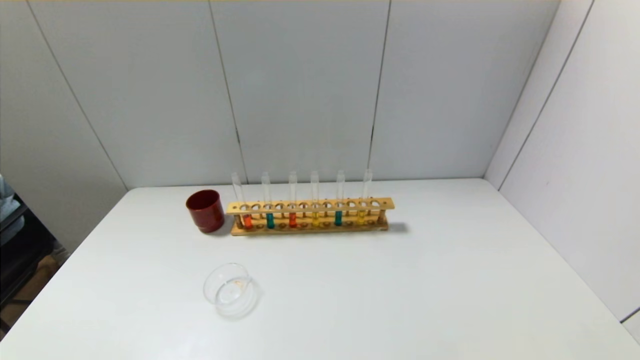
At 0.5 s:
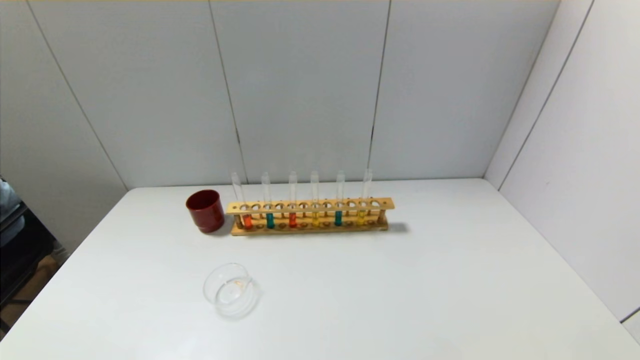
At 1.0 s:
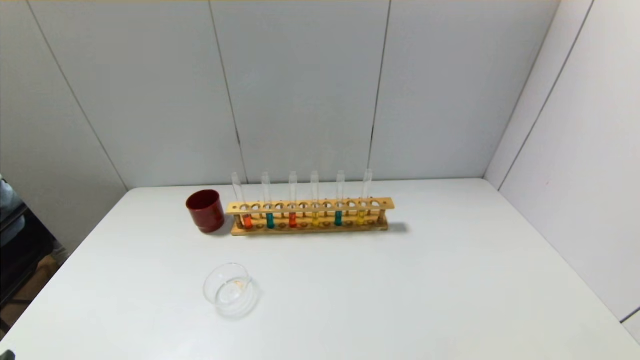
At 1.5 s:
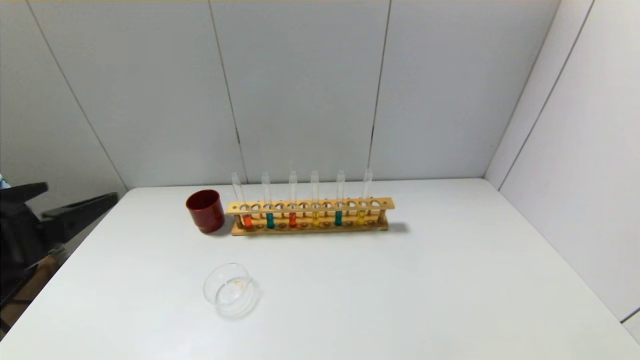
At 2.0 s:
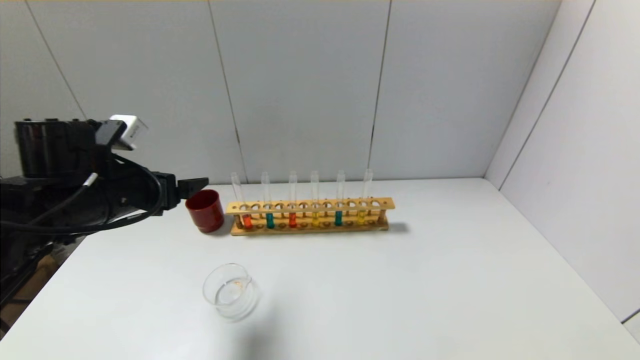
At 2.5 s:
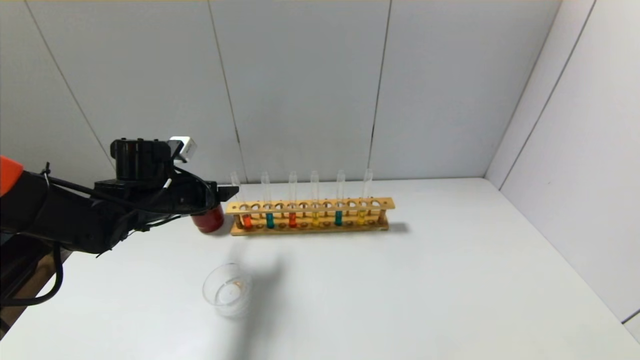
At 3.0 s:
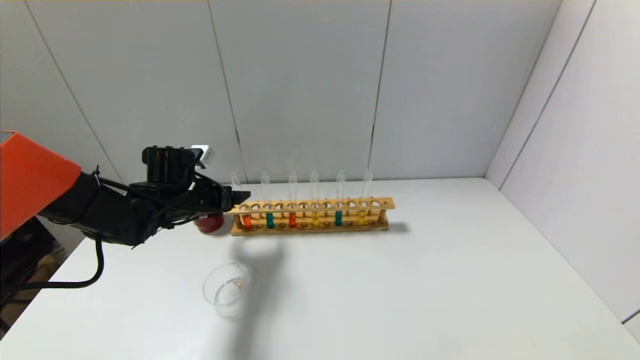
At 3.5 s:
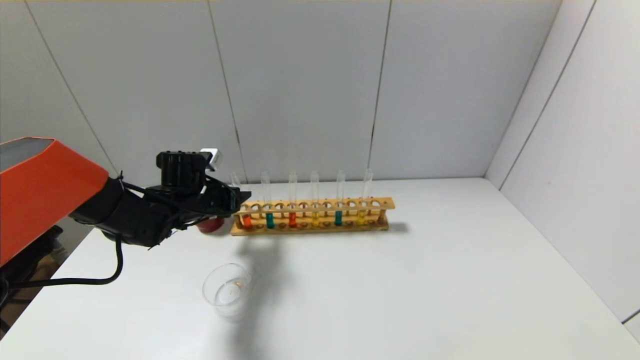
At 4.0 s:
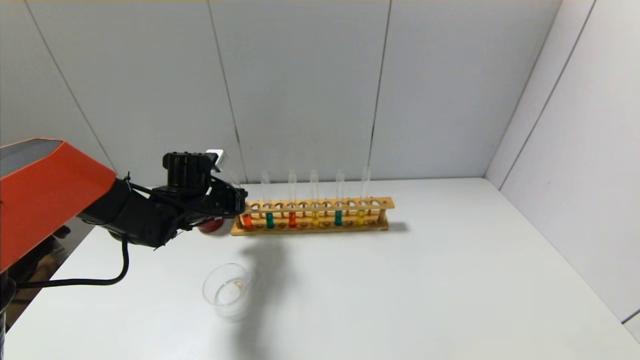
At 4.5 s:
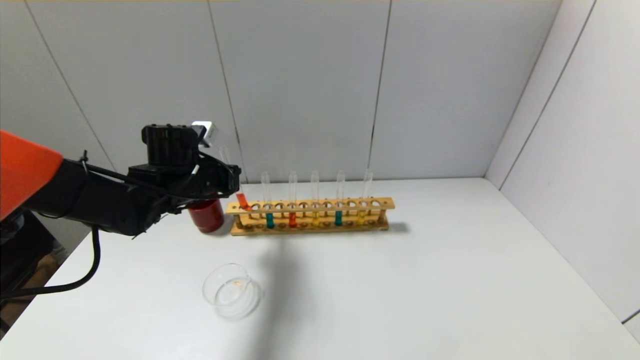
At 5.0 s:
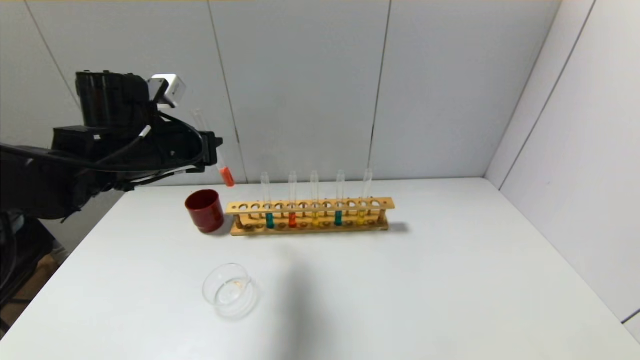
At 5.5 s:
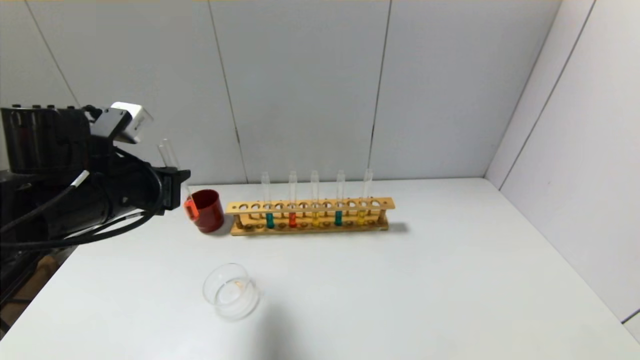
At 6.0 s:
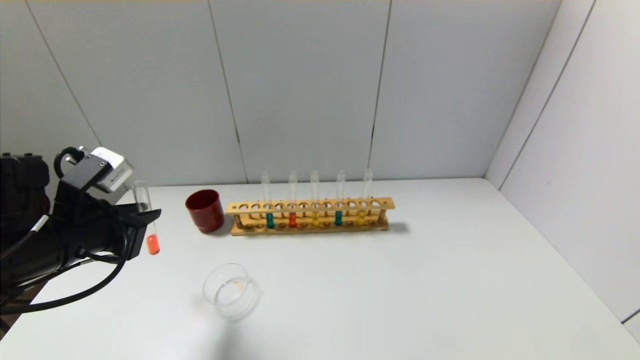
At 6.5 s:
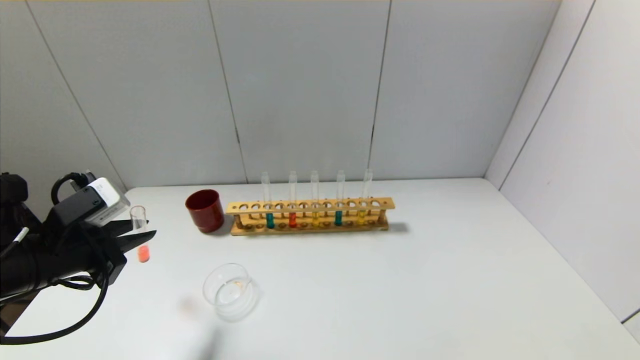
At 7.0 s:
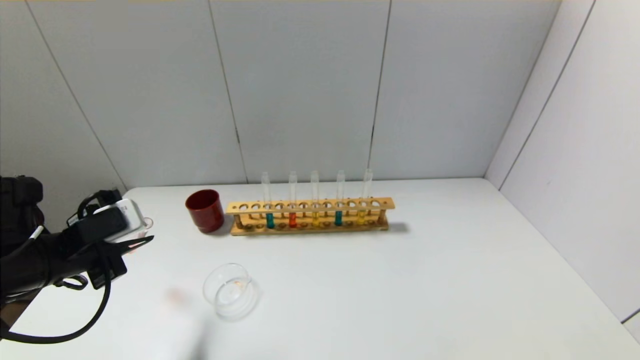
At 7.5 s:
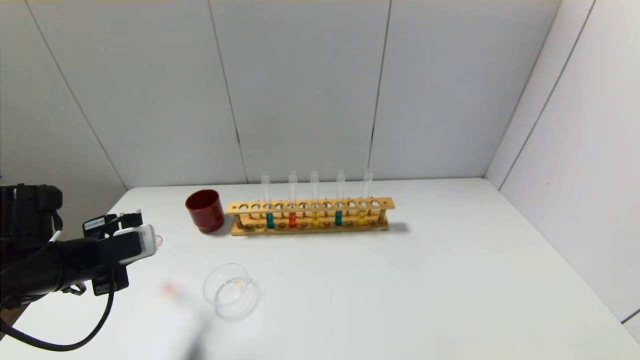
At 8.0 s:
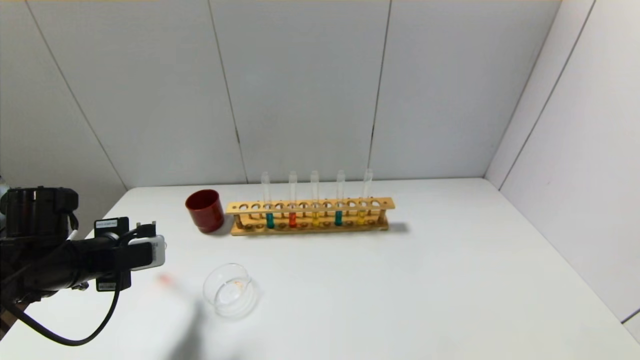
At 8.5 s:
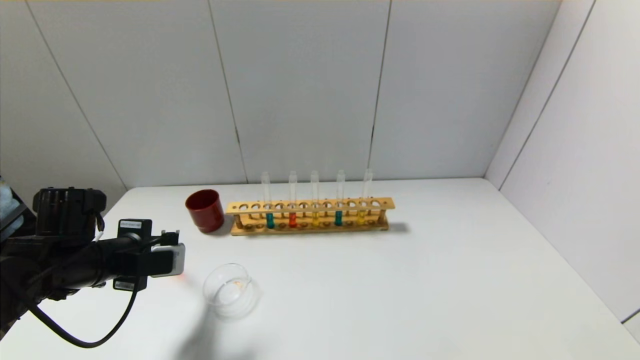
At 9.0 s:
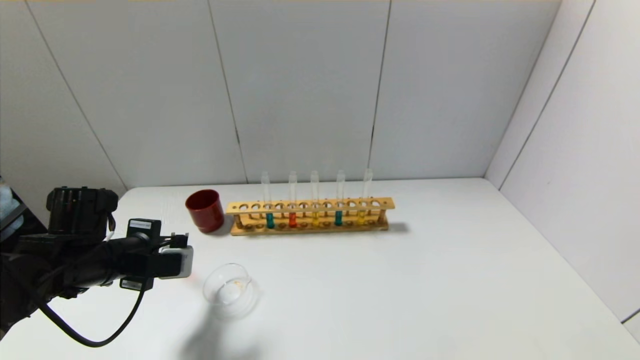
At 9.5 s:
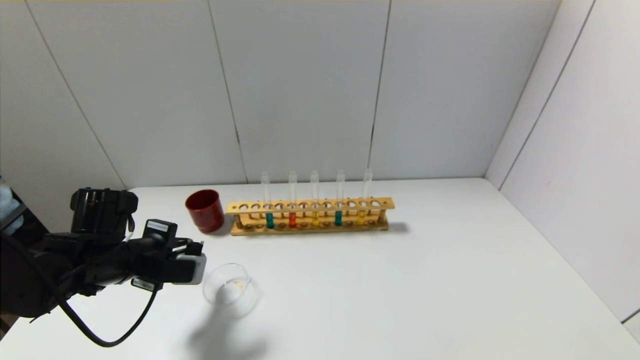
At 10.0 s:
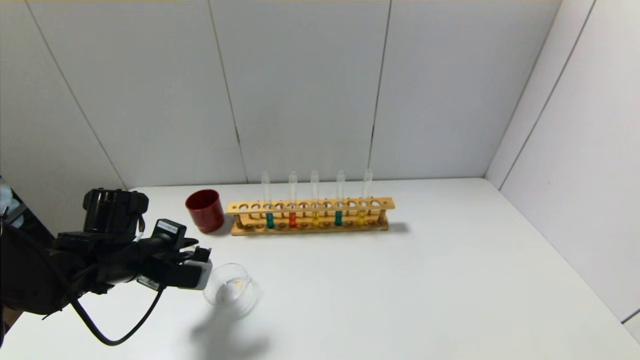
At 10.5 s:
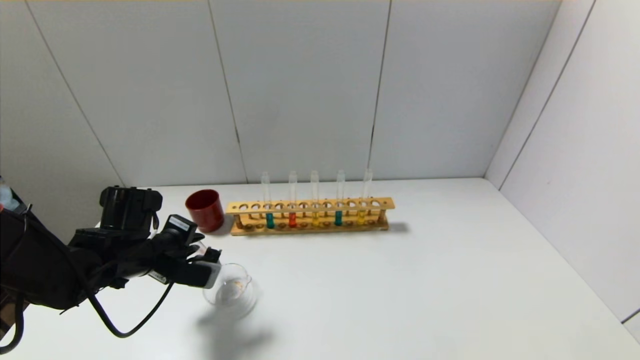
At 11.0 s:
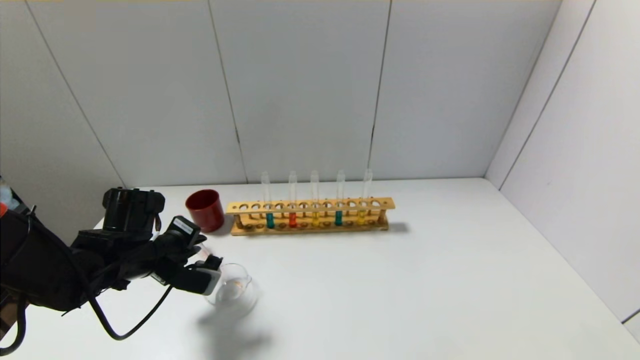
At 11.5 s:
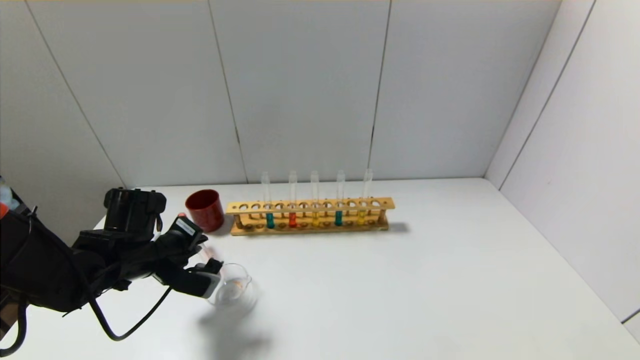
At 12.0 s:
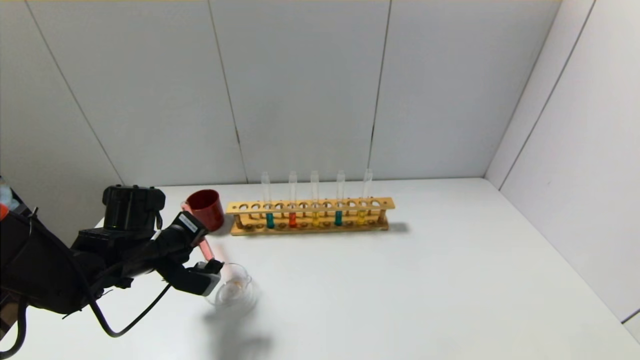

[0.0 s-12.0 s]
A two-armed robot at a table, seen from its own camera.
Step, 0.0 to 3.5 s: Grasp the red reagent with the left gripper.
0.0 to 2.0 s: The left gripper travels forward by about 30 cm.
2.0 to 4.0 s: The left gripper shifts about 15 cm forward and downward, and closes its fingers.
4.0 to 6.0 s: The left gripper travels backward and upward by about 20 cm.
6.0 to 8.0 s: The left gripper heads downward, covering roughly 5 cm.
8.0 to 10.0 s: The left gripper goes roughly 5 cm to the right.

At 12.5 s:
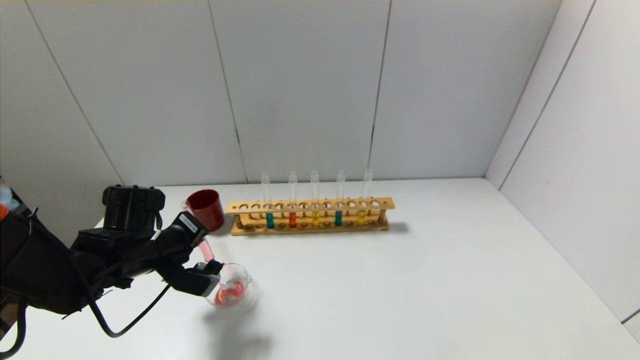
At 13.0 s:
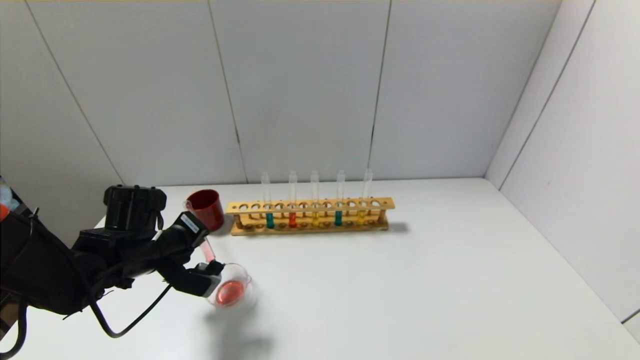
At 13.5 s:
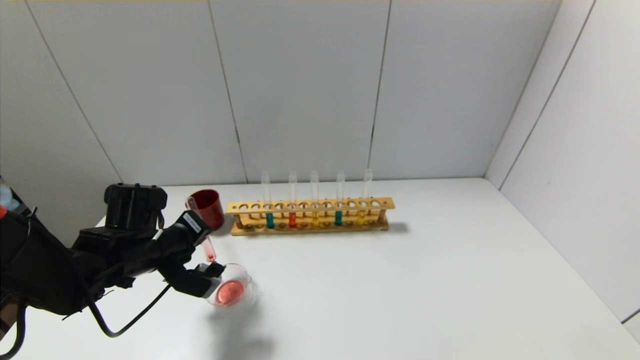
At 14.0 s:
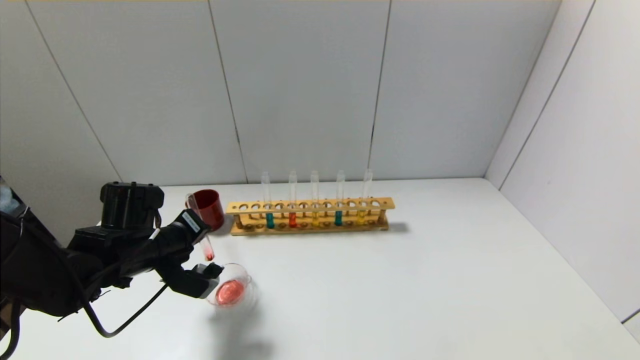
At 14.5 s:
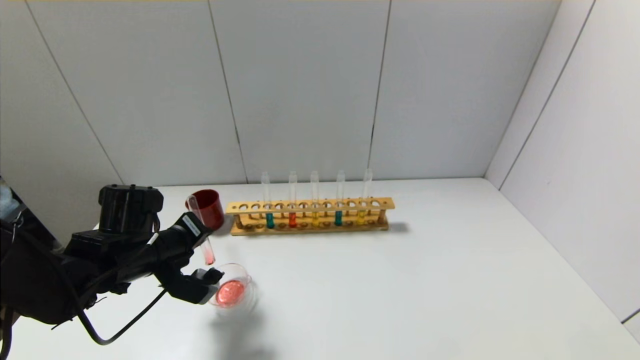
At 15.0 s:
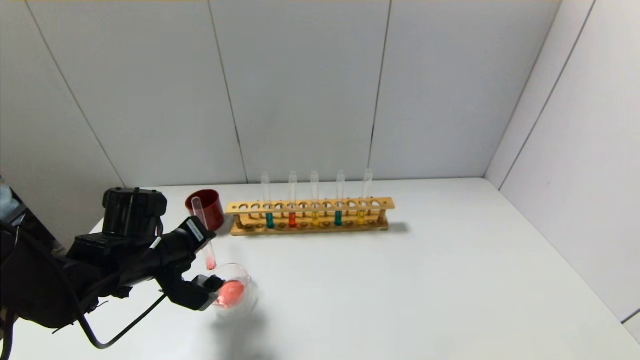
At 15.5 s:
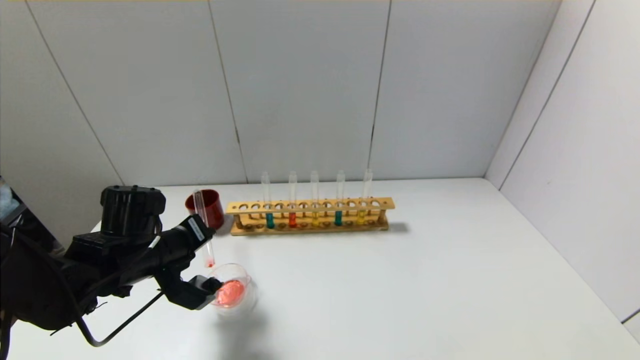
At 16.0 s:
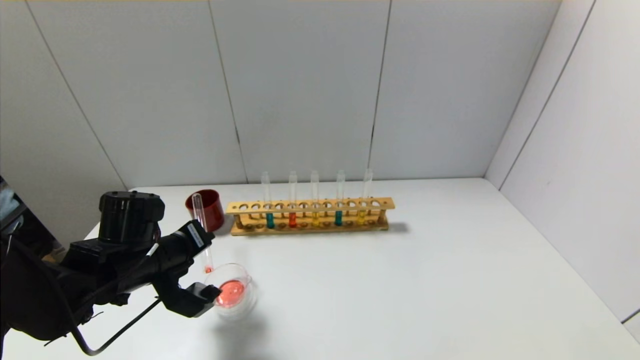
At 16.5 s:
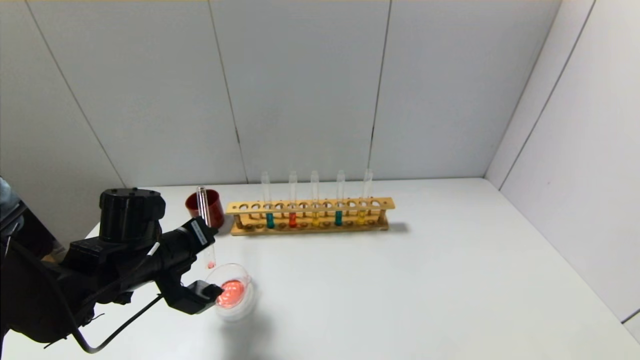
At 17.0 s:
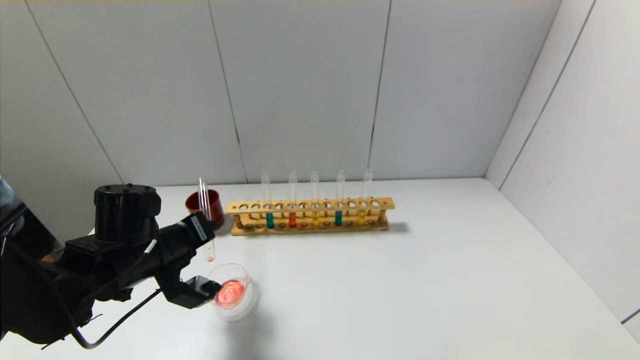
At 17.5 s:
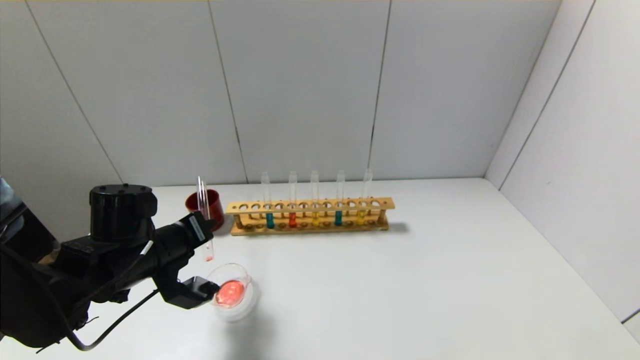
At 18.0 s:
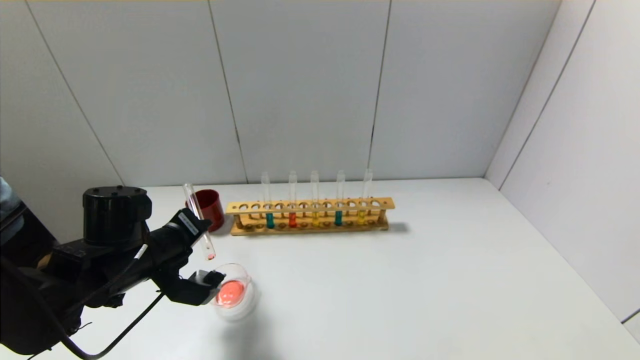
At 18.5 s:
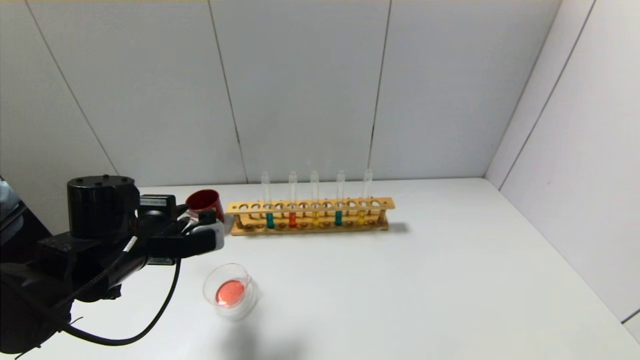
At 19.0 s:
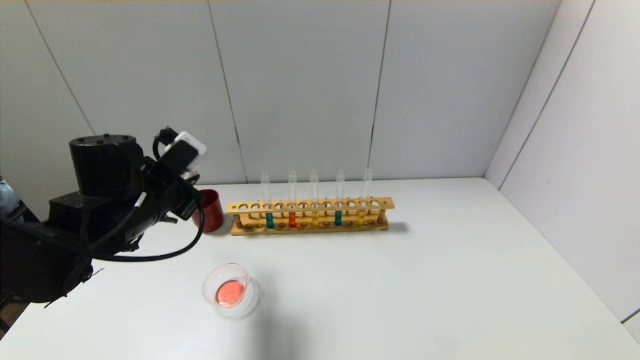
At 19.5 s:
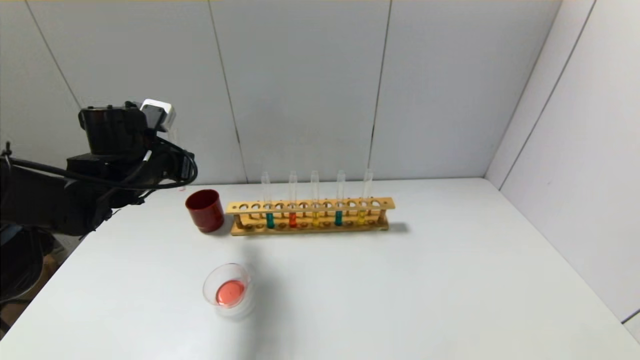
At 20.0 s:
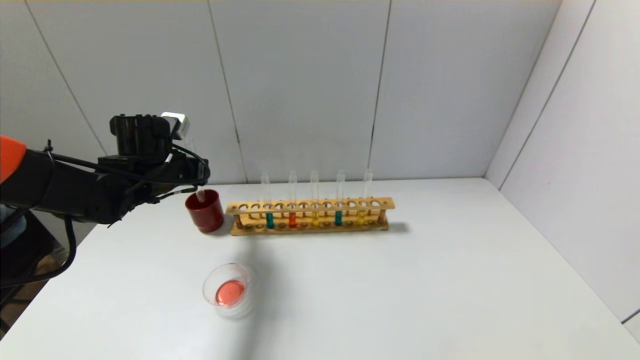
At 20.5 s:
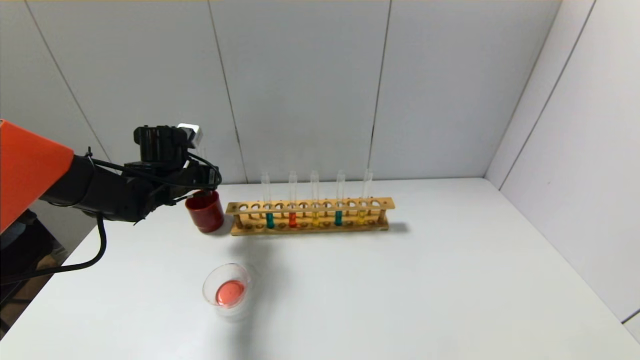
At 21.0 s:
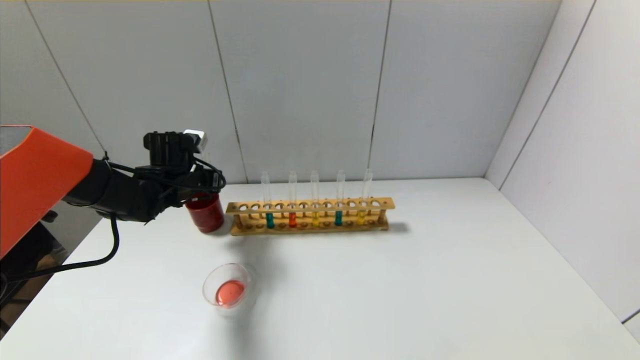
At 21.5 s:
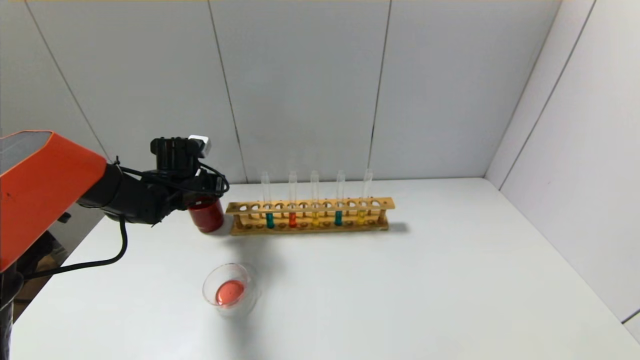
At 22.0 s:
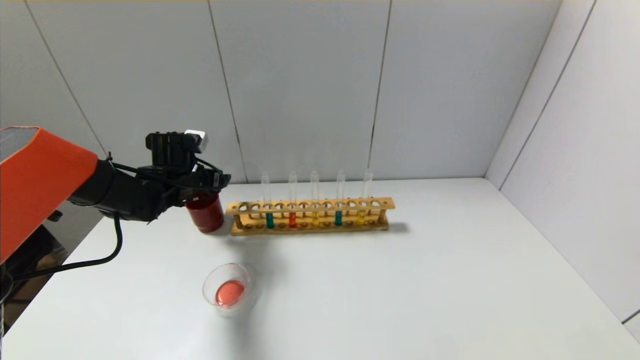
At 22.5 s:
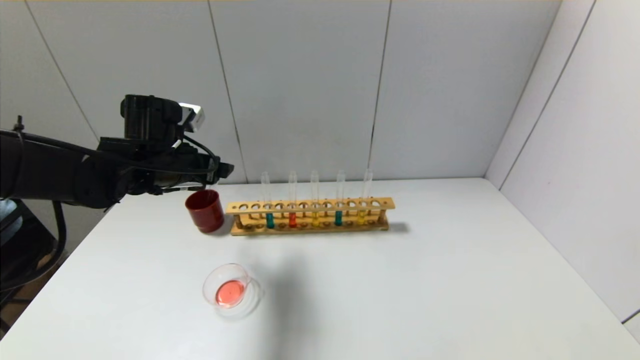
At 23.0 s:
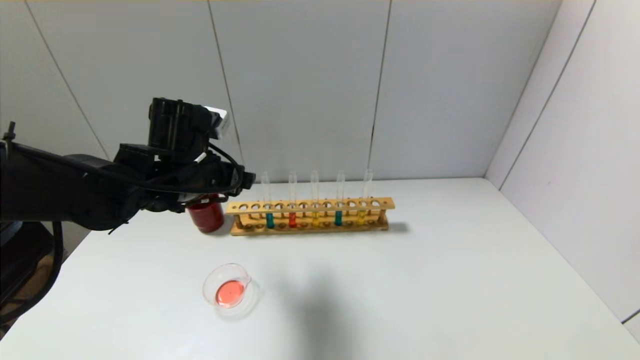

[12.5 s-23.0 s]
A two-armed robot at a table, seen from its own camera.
Step, 12.5 to 18.0 s: Pour the red reagent into the graduated cylinder with the left gripper.
Step, 18.5 to 21.5 s: Place the test tube into the brown cup with the left gripper.
12.5 to 14.5 s: The grippers make only small movements.
14.5 to 16.5 s: The grippers make only small movements.
16.5 to 19.0 s: The left gripper heads upward, covering roughly 5 cm.
19.0 to 21.0 s: The left gripper moves forward and downward, some 15 cm.
21.0 to 23.0 s: The left gripper heads backward, to the right and upward, covering about 15 cm, and opens up.
